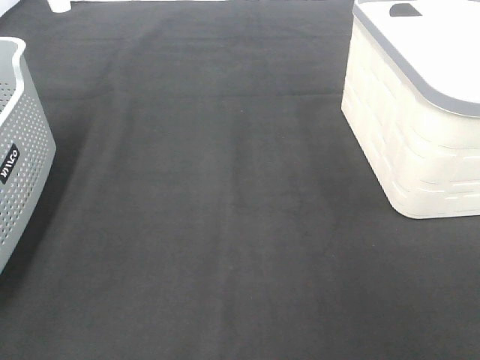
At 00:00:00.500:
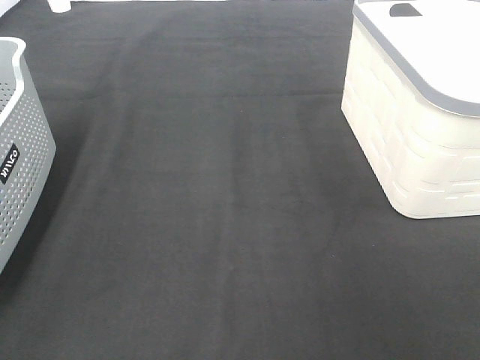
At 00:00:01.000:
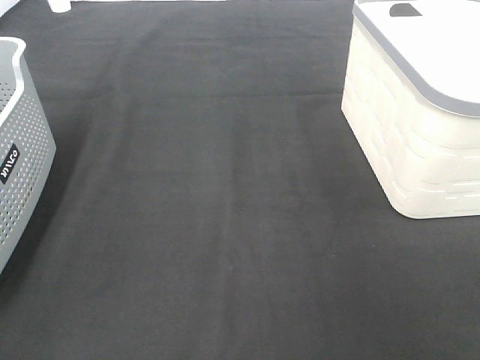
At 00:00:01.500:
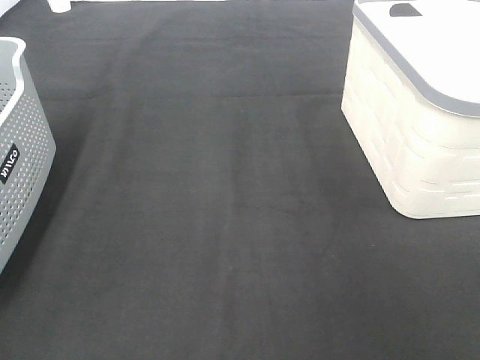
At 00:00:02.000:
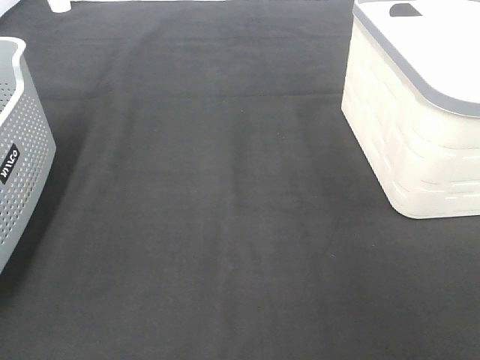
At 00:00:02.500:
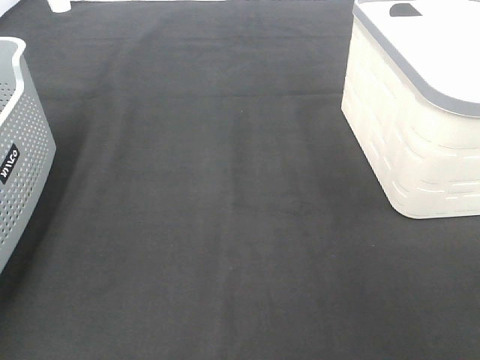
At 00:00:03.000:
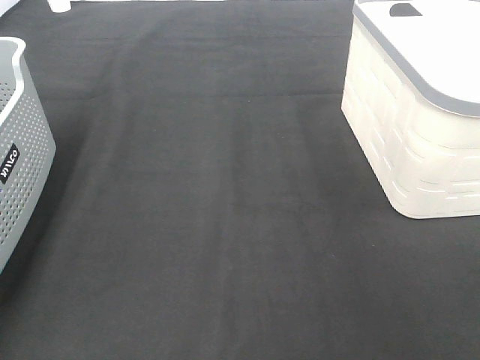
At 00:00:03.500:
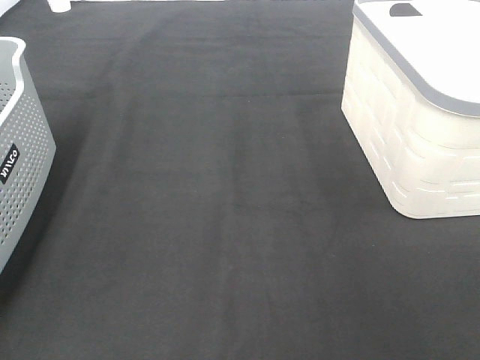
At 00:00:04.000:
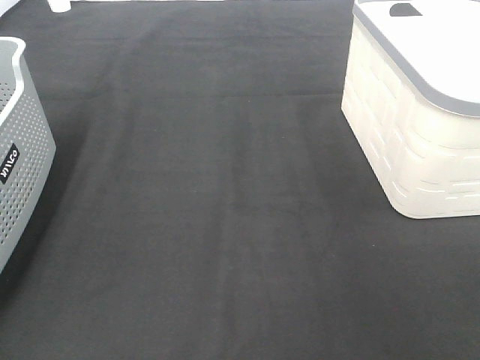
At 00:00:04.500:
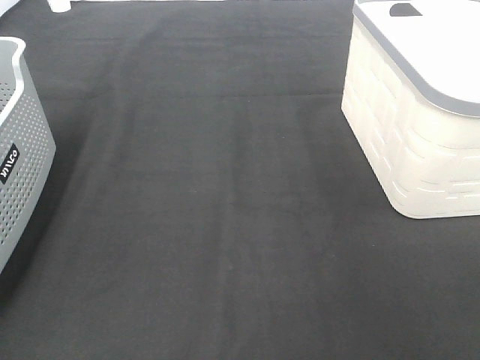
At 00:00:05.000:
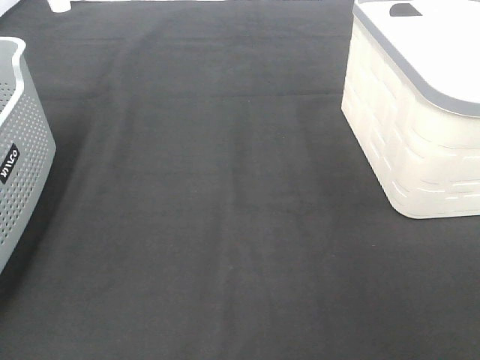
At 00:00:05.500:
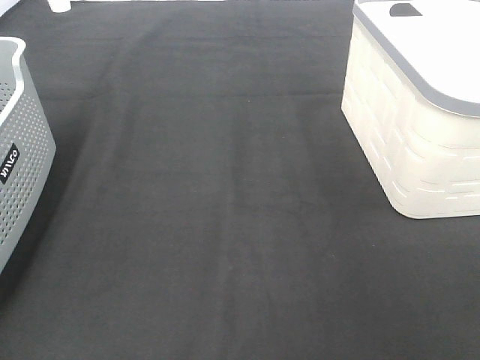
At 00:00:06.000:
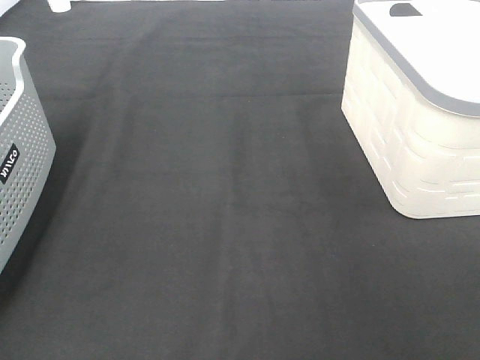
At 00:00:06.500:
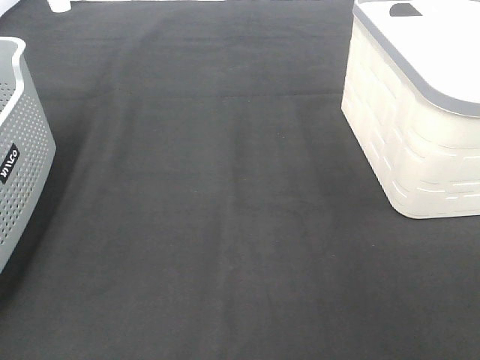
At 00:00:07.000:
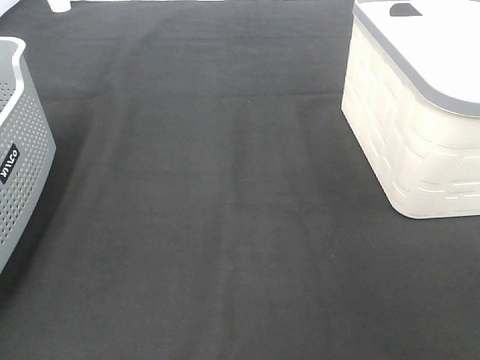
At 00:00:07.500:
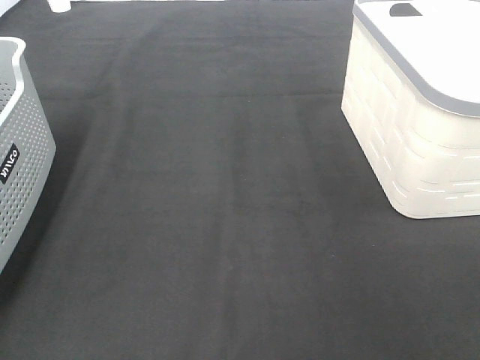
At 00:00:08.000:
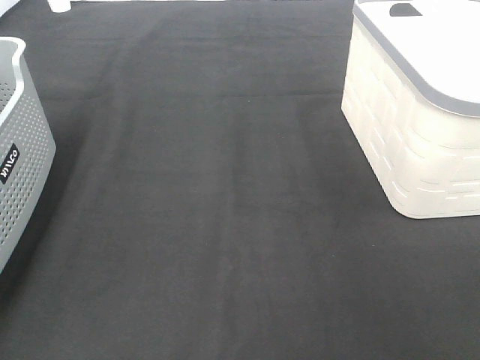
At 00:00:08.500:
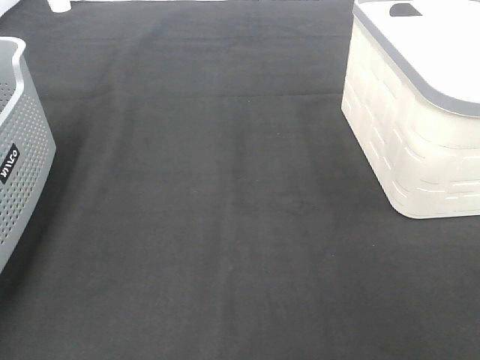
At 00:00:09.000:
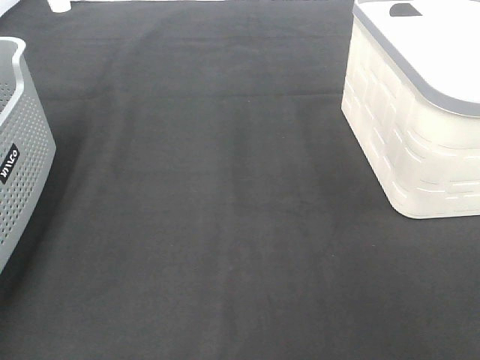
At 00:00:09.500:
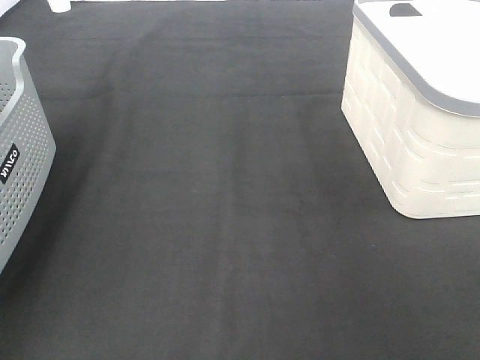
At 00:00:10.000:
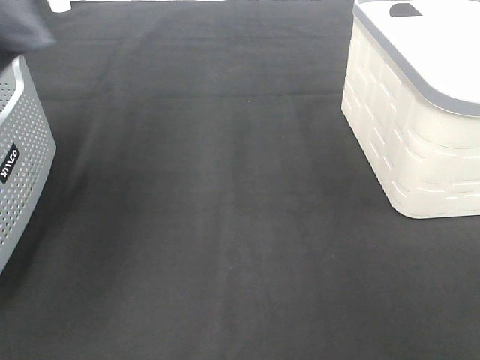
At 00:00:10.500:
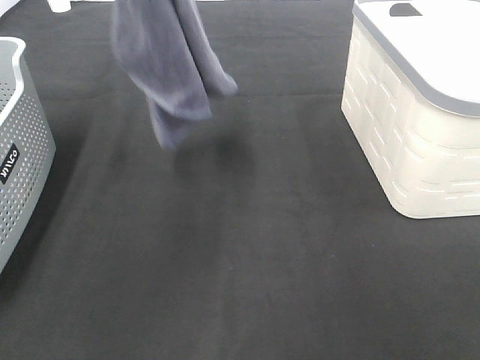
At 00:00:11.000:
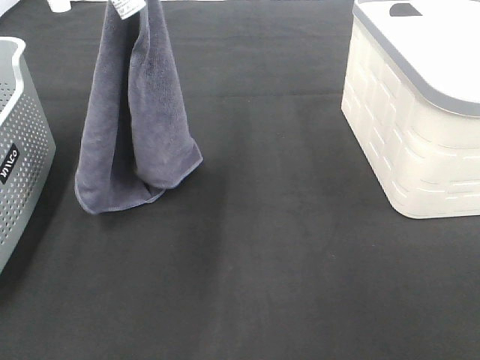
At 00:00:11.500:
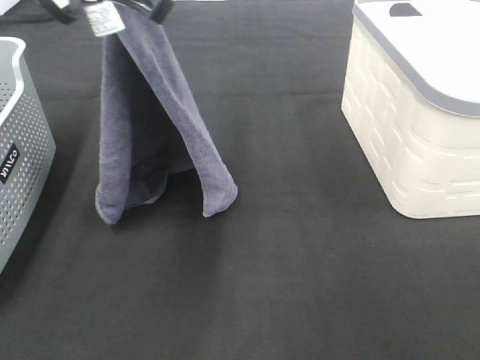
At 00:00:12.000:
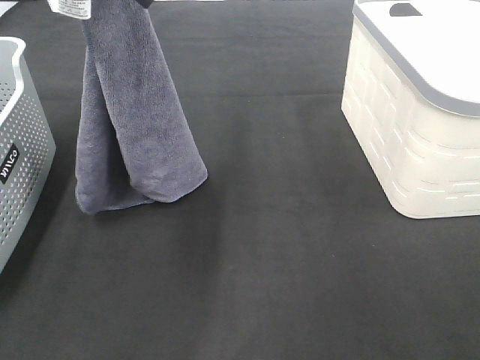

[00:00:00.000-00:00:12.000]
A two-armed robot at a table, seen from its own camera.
Task of the whole recording: Remove the towel and place it.
00:00:08.000 to 00:00:10.000: The left gripper heads upward and to the right, covering roughly 20 cm.
00:00:10.000 to 00:00:12.000: The left gripper travels downward and to the right by roughly 15 cm. The right gripper is displaced forward by about 10 cm.

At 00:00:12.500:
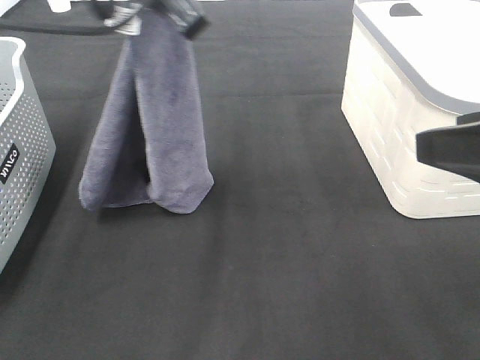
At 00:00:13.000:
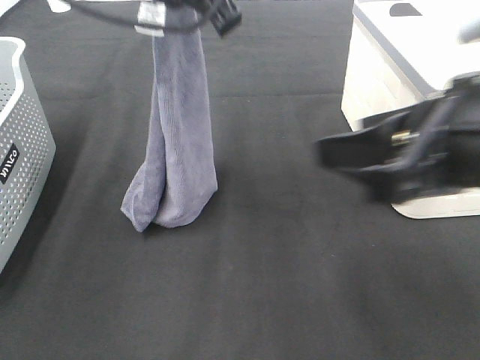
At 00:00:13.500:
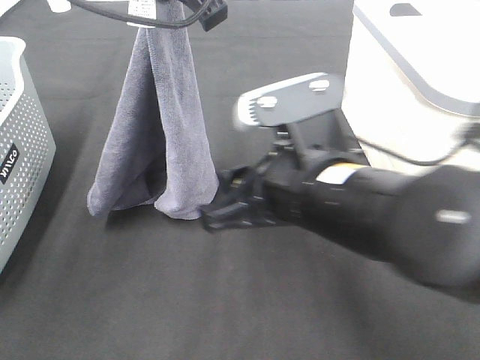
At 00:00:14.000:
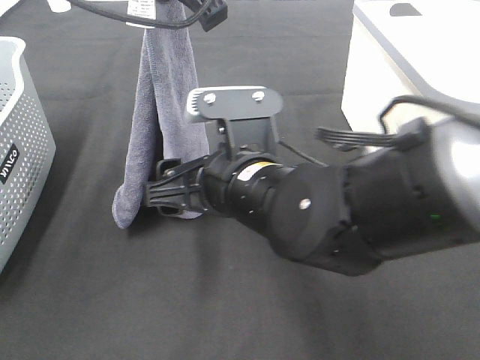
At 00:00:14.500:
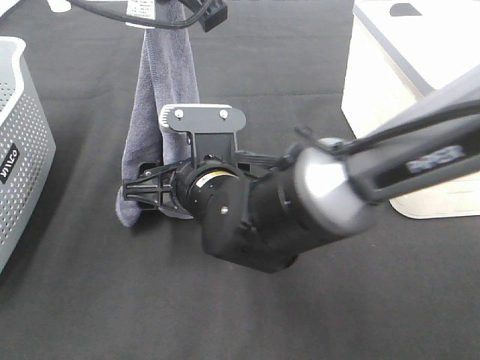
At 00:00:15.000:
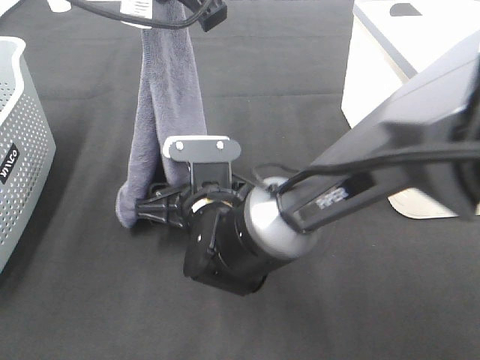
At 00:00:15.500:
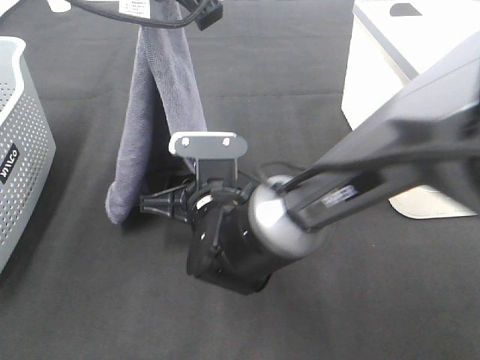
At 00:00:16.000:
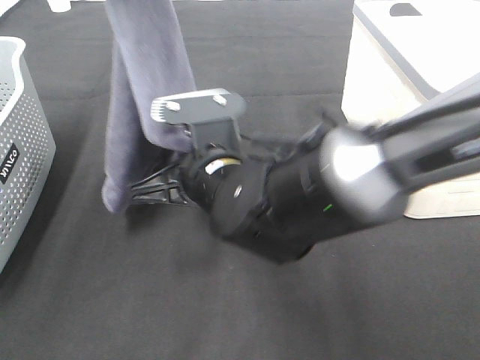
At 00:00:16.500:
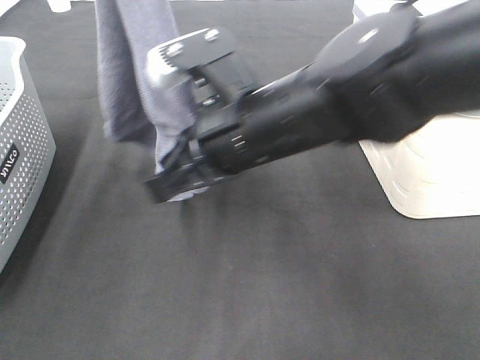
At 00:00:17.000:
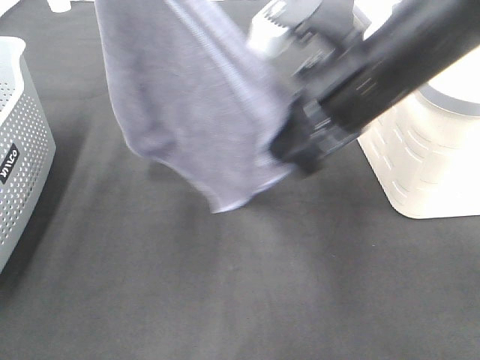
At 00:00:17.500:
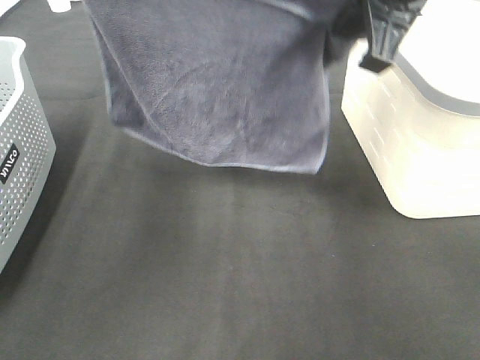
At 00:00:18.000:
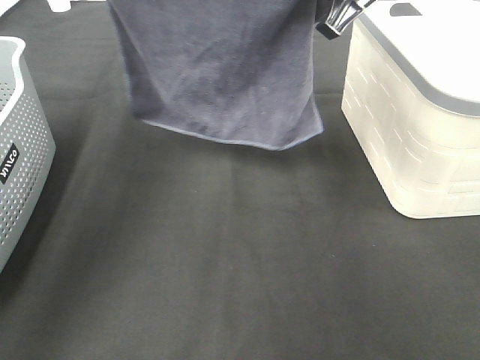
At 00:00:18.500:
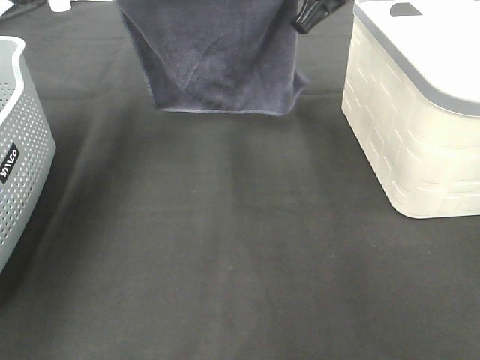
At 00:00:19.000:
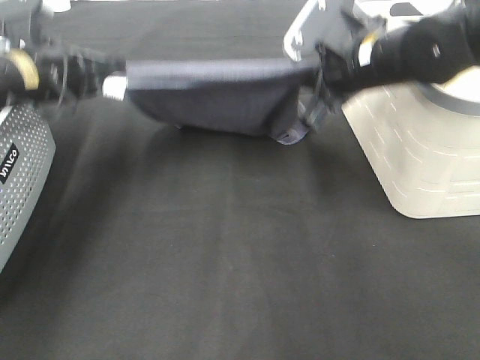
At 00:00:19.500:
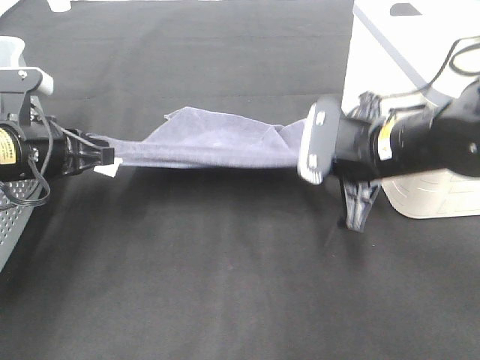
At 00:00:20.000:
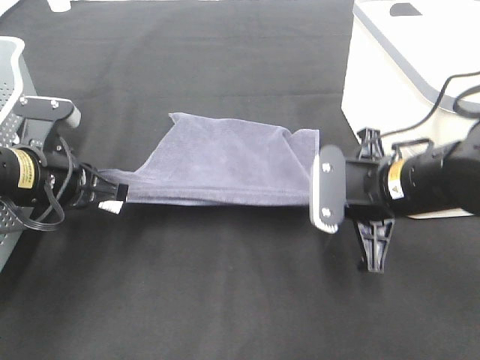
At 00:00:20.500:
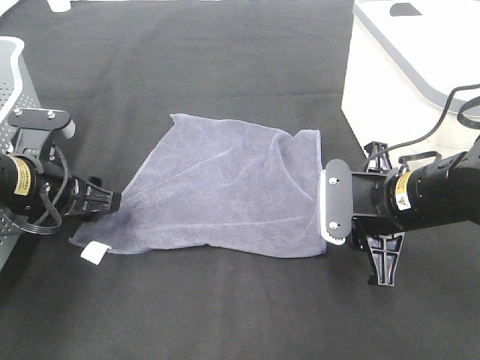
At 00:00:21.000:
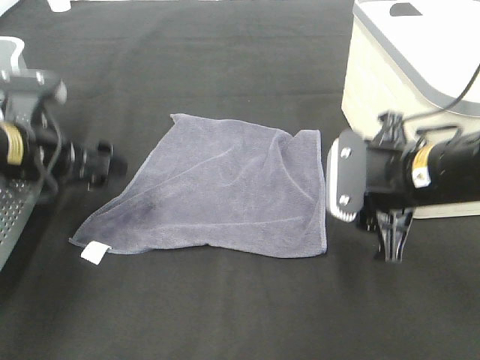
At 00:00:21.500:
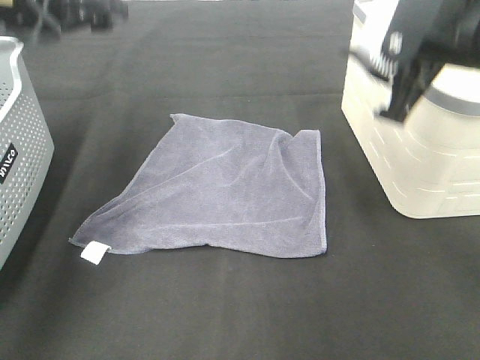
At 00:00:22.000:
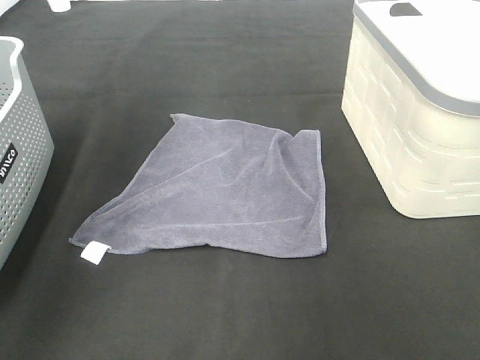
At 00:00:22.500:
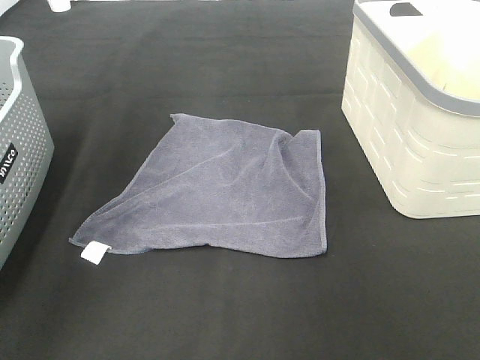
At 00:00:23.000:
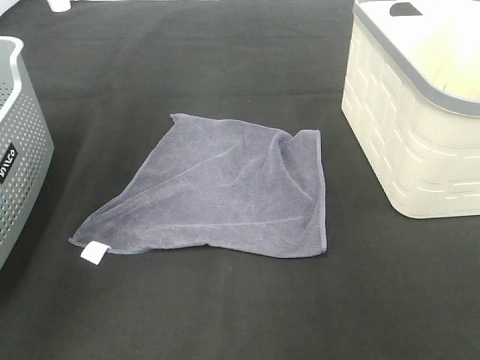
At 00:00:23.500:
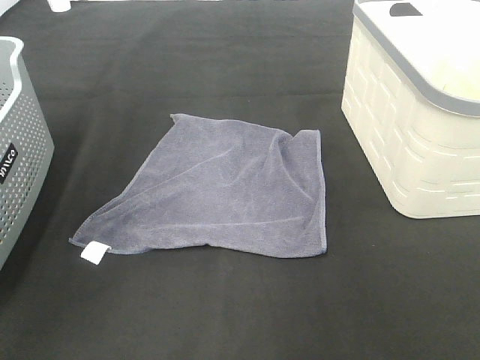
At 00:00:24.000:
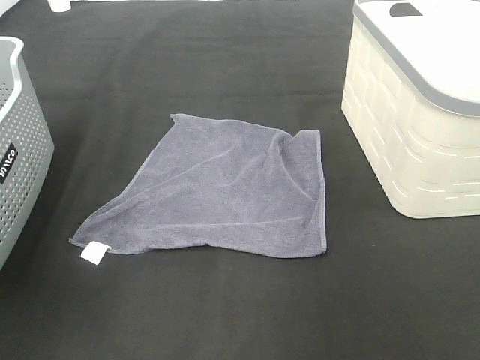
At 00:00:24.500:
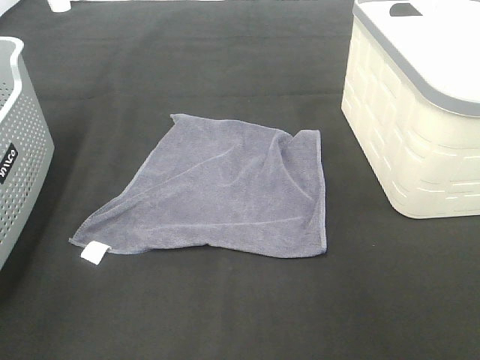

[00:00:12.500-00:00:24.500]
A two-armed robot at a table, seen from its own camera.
Task of the whole recording: Remove the towel and place it.
Step, 00:00:14.000 to 00:00:16.000: Left hand: spread the grey towel flat on the table.
Step, 00:00:14.000 to 00:00:16.000: Right hand: spread the grey towel flat on the table.
00:00:12.500 to 00:00:14.500: The right gripper is displaced to the left, downward and forward by roughly 35 cm.
00:00:14.500 to 00:00:16.500: The left gripper moves upward and to the left, approximately 10 cm, while the right gripper travels upward and to the right by approximately 10 cm, and closes.
00:00:16.500 to 00:00:18.500: The right gripper moves forward, to the right and upward, roughly 20 cm, while the left gripper moves downward, to the left and forward, approximately 20 cm.
00:00:18.500 to 00:00:20.500: The two grippers go about 25 cm downward and backward. The right gripper opens; the left gripper opens its fingers.
00:00:20.500 to 00:00:22.500: Both grippers travel together upward, approximately 30 cm.
00:00:22.500 to 00:00:24.500: The two grippers go approximately 25 cm backward.

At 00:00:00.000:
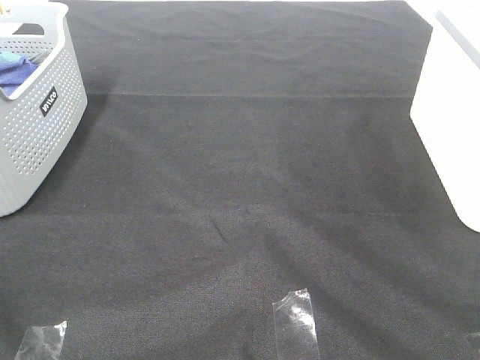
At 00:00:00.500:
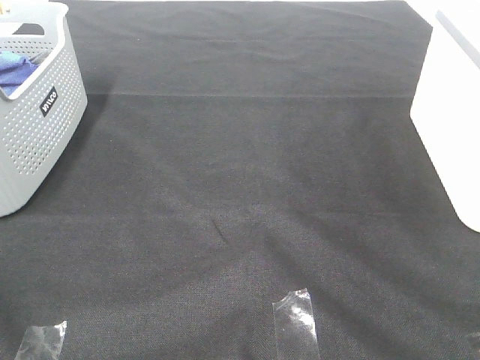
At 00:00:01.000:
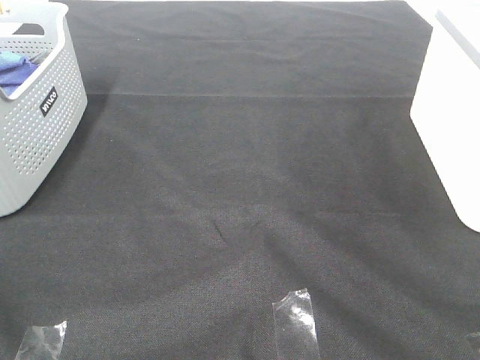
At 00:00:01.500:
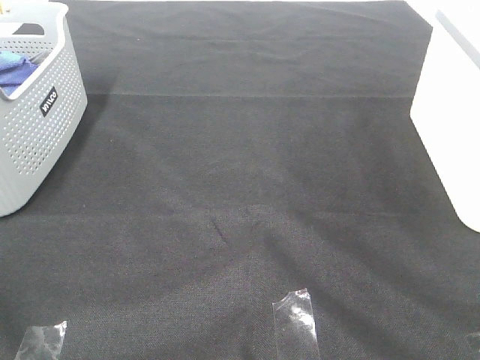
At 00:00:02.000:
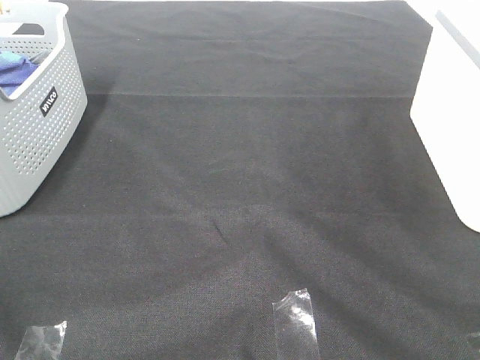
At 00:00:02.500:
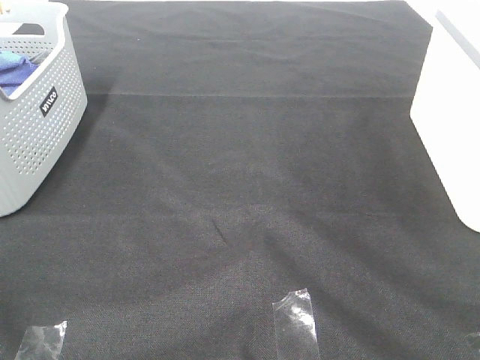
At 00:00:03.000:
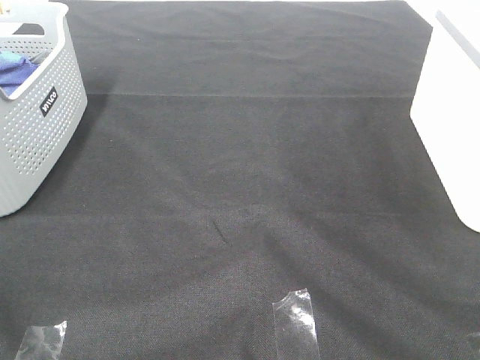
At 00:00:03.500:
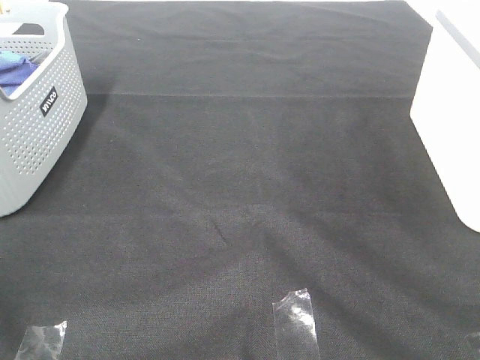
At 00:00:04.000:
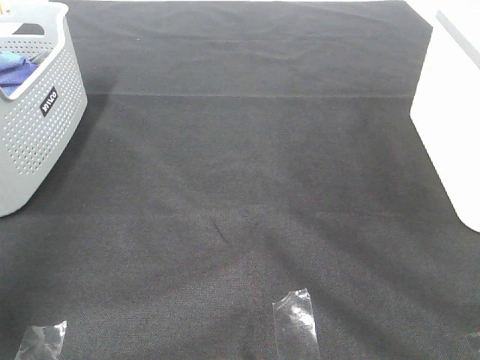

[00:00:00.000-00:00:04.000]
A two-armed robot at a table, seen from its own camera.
Task of the whole recording: Remove the towel and place it.
00:00:00.000 to 00:00:02.000: Both grippers stay about where they are.
